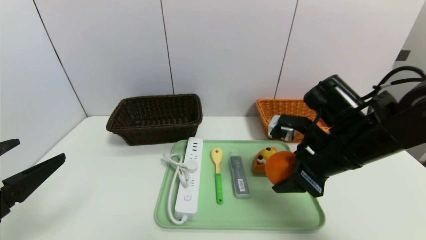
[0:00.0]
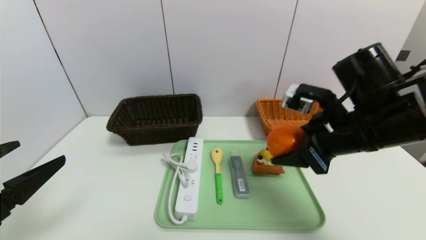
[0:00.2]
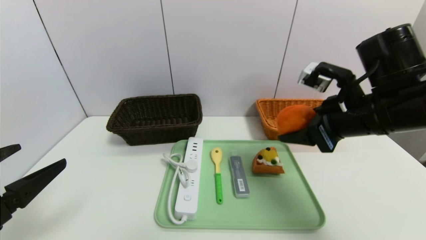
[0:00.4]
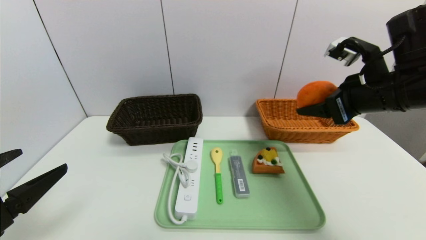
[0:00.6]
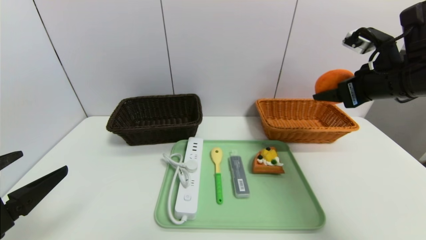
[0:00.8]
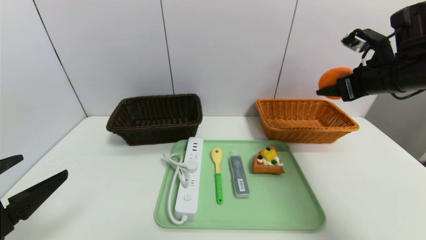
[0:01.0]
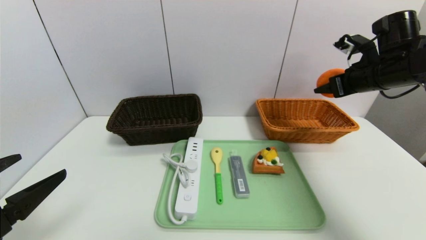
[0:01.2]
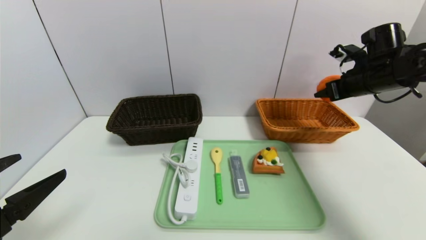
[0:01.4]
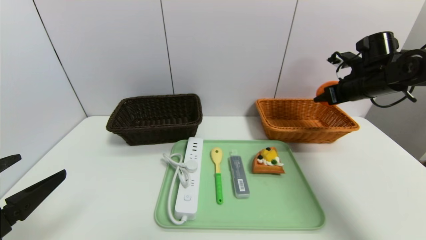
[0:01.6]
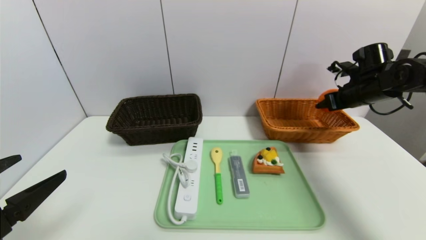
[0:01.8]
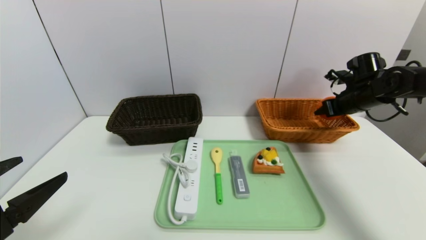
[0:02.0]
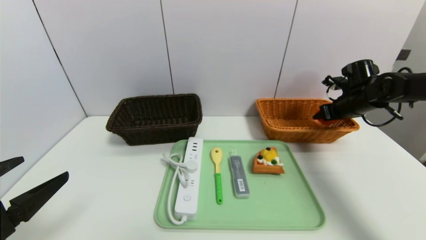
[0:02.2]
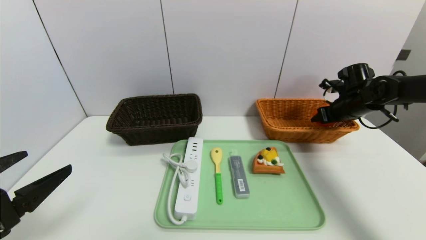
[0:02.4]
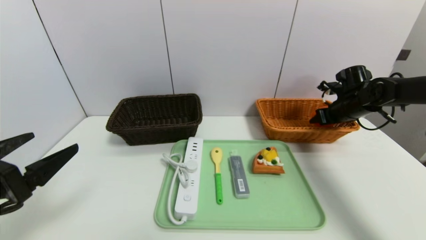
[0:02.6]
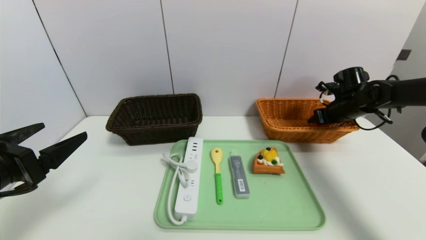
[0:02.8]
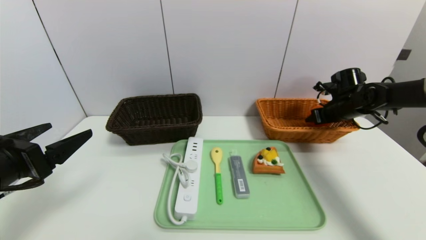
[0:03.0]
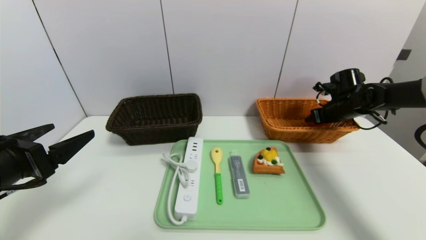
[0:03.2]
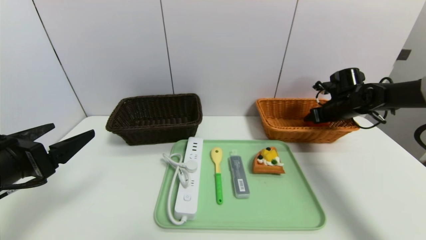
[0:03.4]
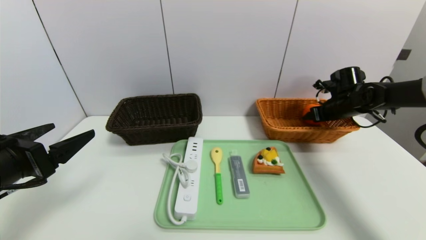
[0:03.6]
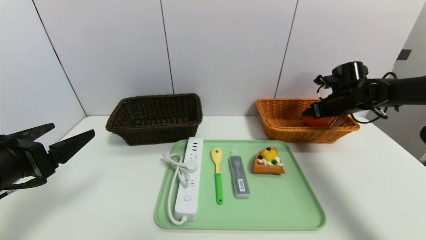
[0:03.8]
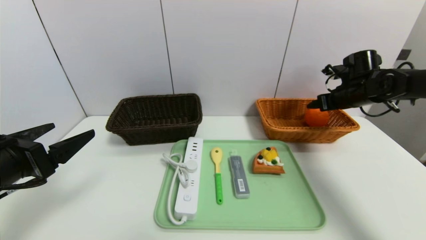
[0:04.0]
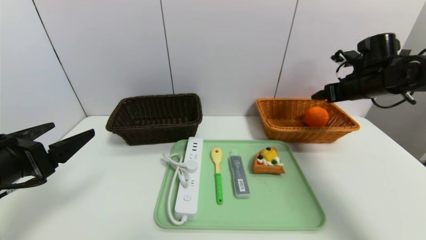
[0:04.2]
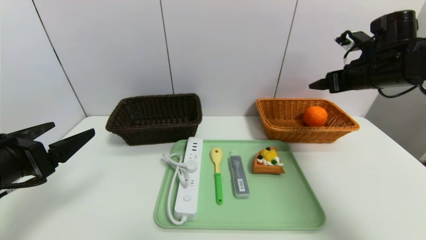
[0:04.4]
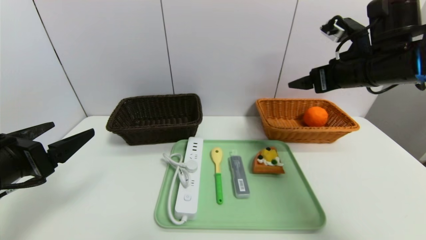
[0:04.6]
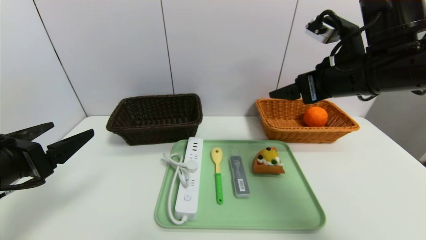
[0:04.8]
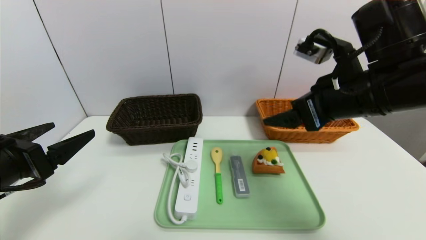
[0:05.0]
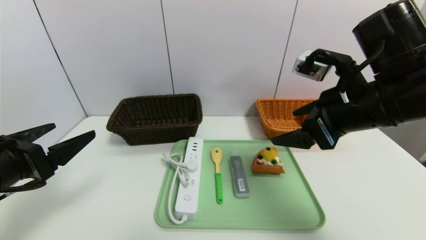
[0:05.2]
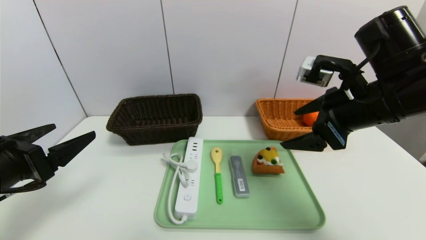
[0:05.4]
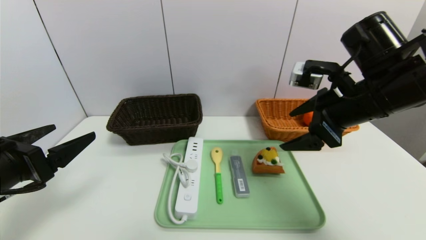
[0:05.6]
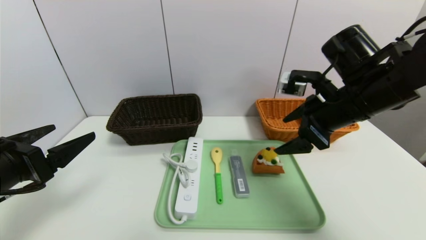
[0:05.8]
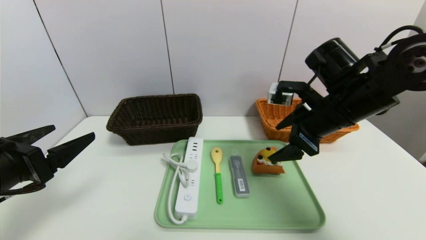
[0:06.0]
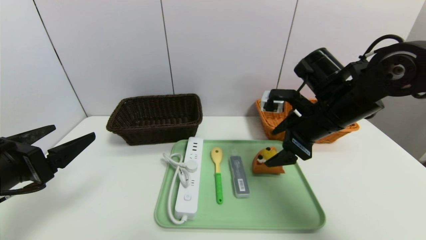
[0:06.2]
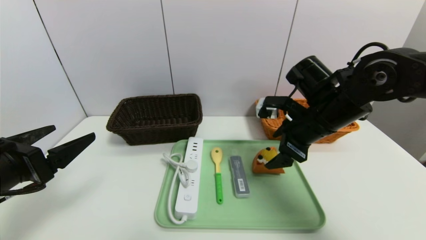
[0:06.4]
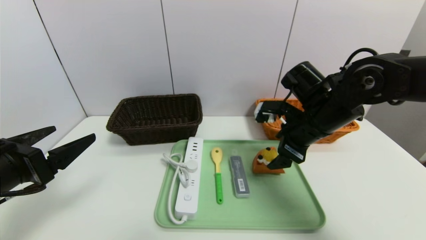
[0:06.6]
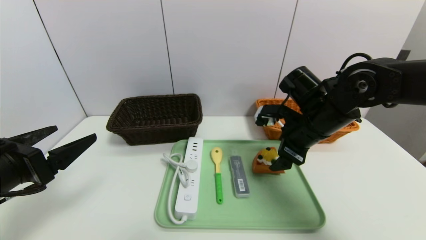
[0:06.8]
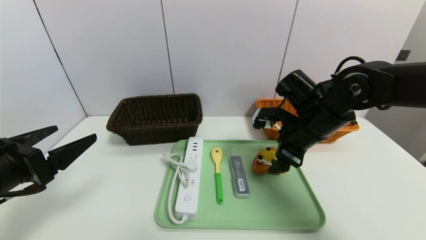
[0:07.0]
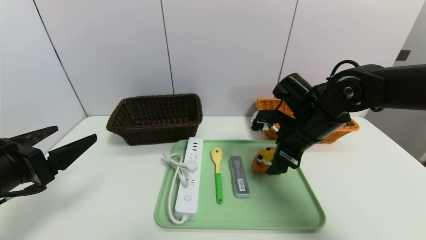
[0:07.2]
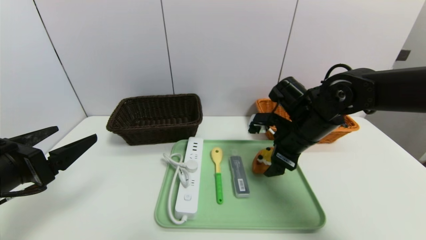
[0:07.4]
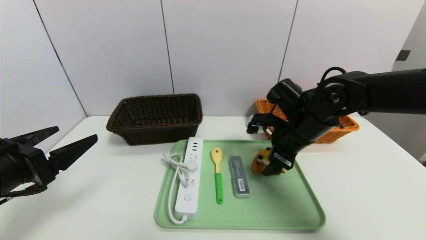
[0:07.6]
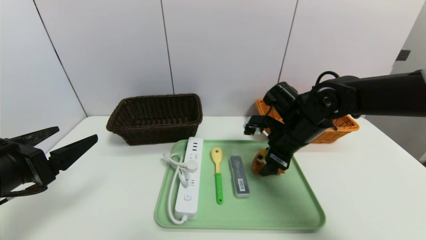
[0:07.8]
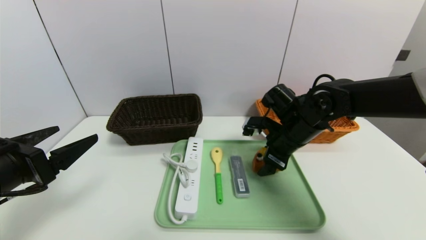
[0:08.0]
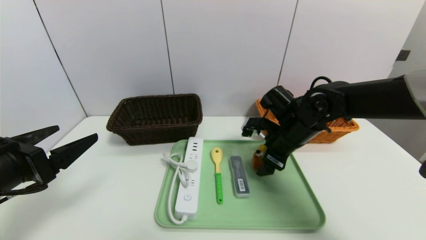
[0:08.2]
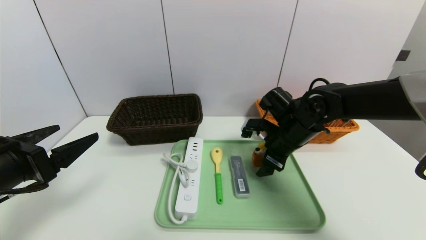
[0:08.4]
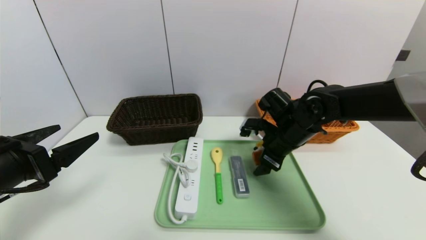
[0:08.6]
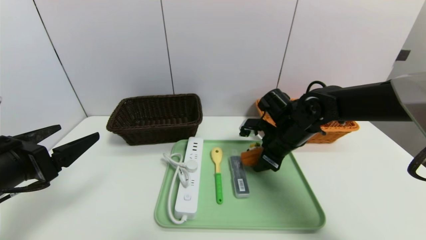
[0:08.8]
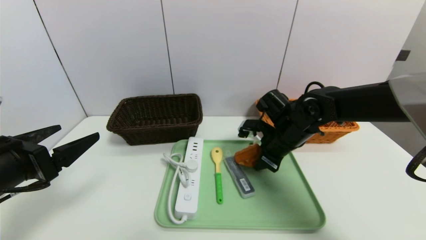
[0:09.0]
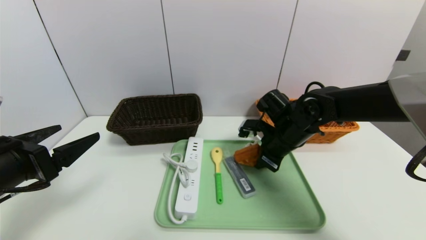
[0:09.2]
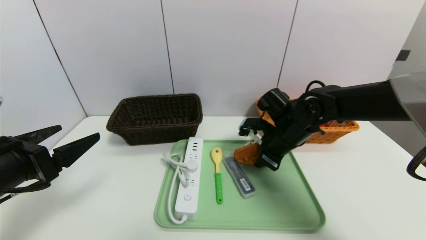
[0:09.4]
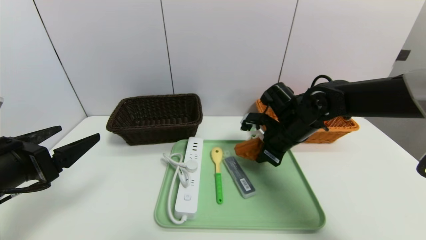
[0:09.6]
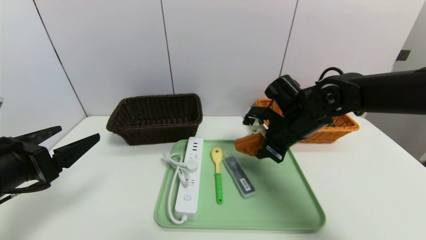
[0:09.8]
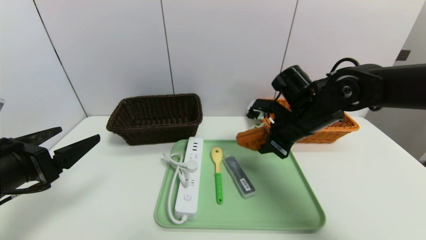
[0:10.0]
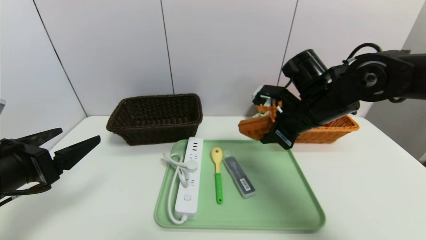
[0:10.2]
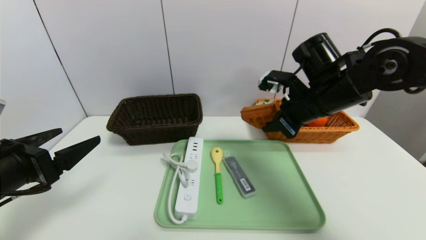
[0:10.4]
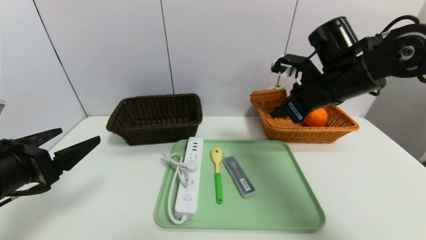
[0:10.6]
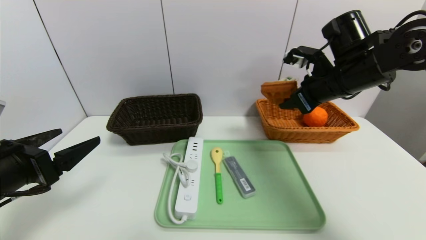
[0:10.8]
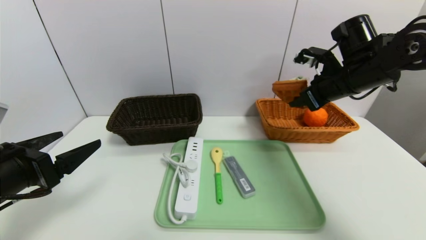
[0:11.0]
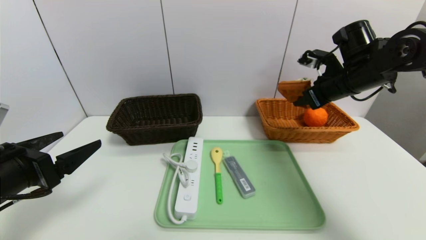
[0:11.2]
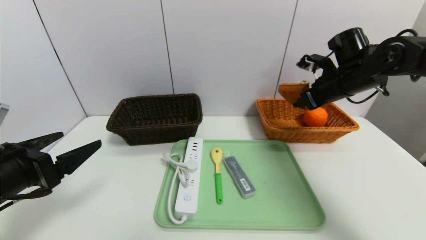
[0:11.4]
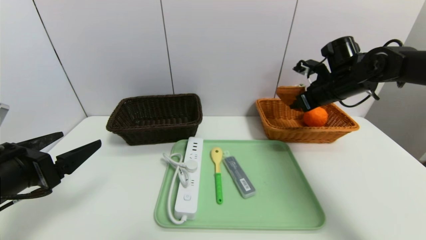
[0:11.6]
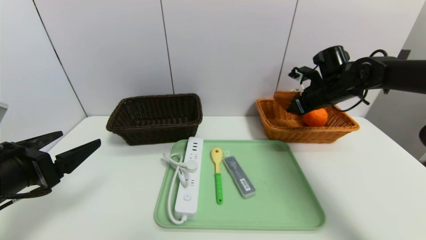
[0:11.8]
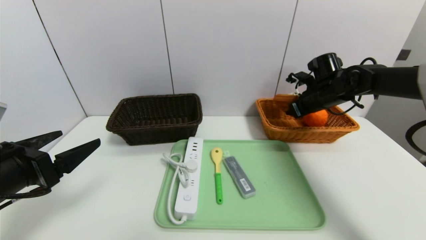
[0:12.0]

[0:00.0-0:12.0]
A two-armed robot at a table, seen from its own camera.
Task of the whole recording: place the food in the right basket with the right gripper, and place the non food items in the left basket with the left gripper.
Step, 0:00.0 to 0:04.0: Grasp the orange and put it in the right basket.
0:00.0 to 0:01.6: The right gripper is displaced forward and to the right by roughly 20 cm.
0:01.6 to 0:03.0: The left gripper goes some 5 cm forward. Meanwhile the right gripper moves downward, approximately 10 cm.
0:03.0 to 0:04.4: The right gripper moves upward, backward and to the left, approximately 15 cm, and opens its fingers.
0:04.4 to 0:06.0: The right gripper travels to the left and backward by some 10 cm.
0:06.0 to 0:07.6: The right gripper shifts some 5 cm downward.
0:07.6 to 0:09.0: The right gripper closes up.
0:09.0 to 0:10.4: The right gripper moves upward, about 10 cm.
0:10.4 to 0:12.0: The right gripper moves forward, to the right and downward, some 15 cm.

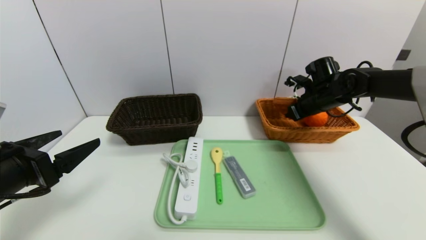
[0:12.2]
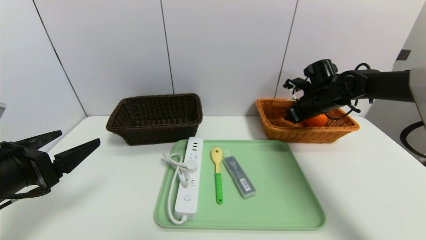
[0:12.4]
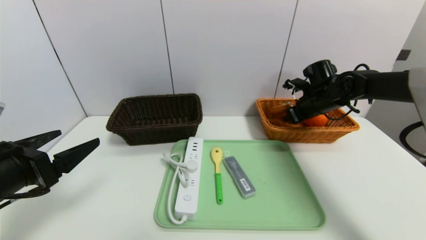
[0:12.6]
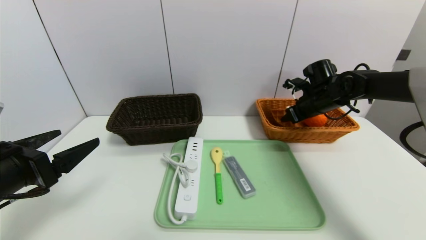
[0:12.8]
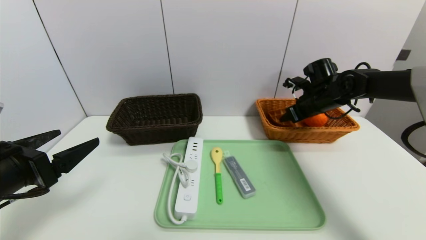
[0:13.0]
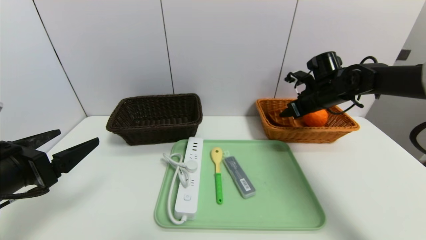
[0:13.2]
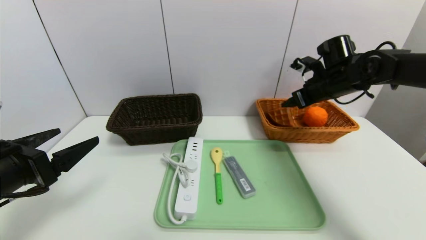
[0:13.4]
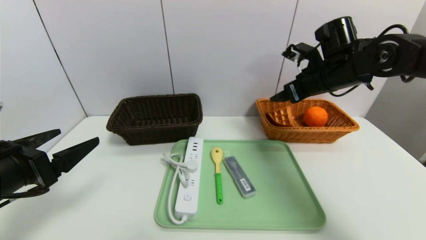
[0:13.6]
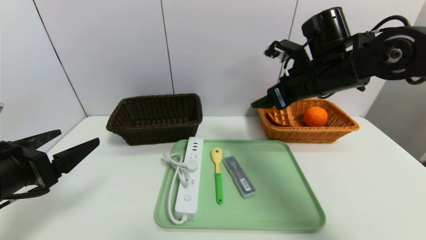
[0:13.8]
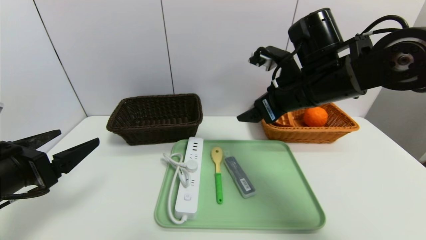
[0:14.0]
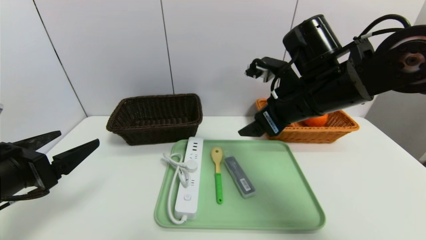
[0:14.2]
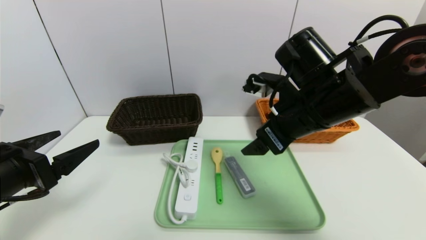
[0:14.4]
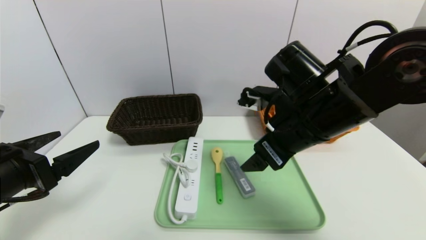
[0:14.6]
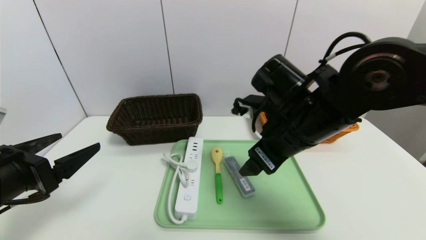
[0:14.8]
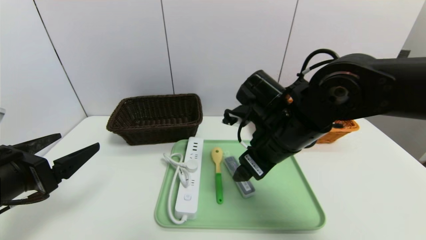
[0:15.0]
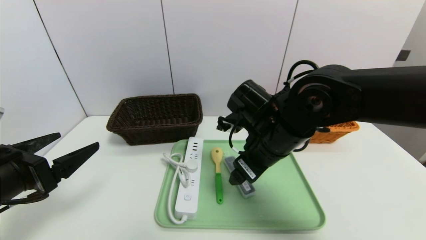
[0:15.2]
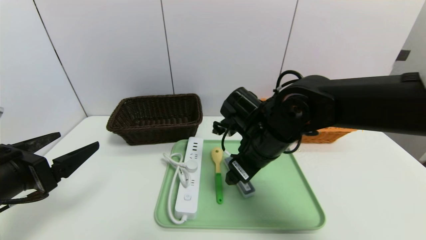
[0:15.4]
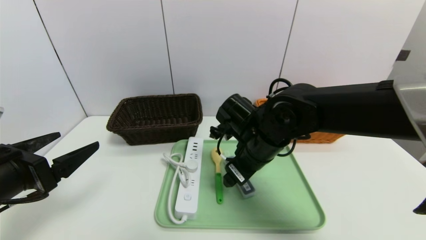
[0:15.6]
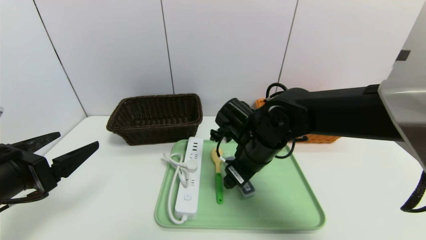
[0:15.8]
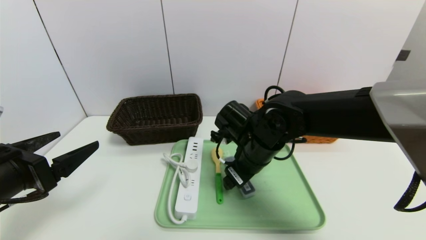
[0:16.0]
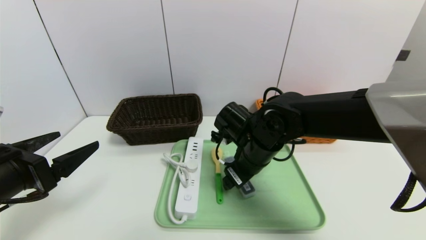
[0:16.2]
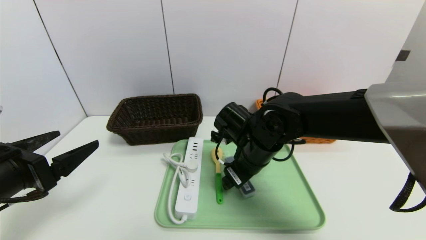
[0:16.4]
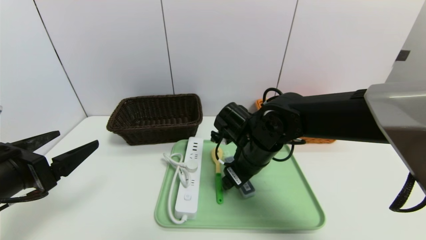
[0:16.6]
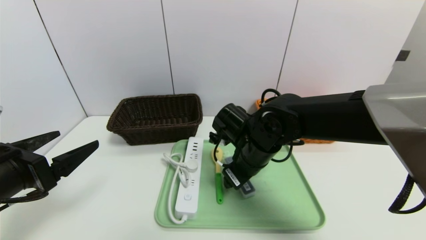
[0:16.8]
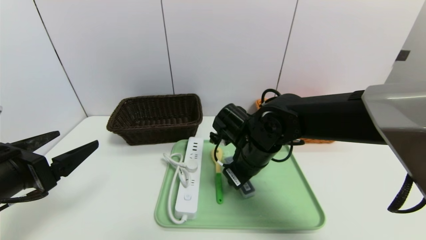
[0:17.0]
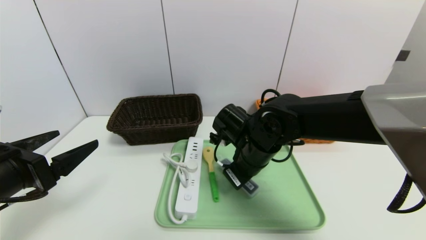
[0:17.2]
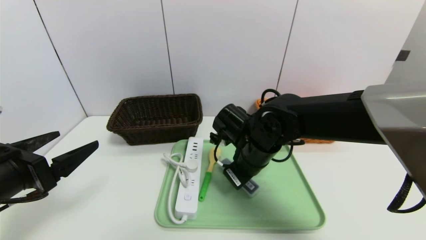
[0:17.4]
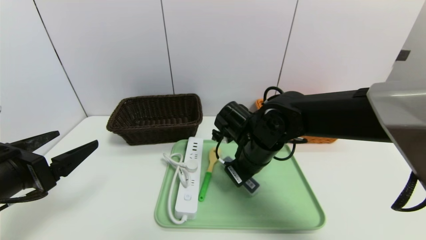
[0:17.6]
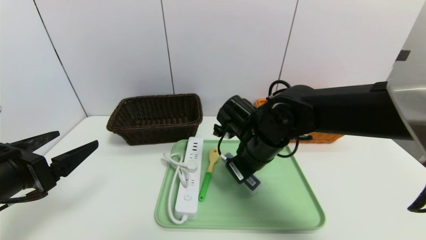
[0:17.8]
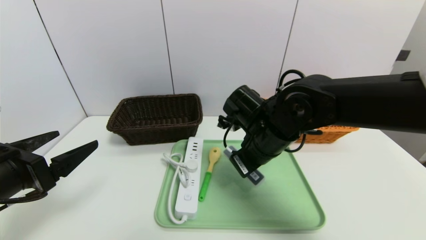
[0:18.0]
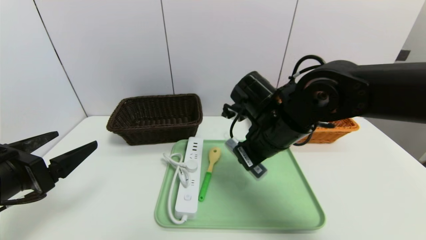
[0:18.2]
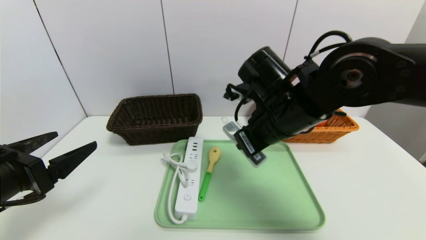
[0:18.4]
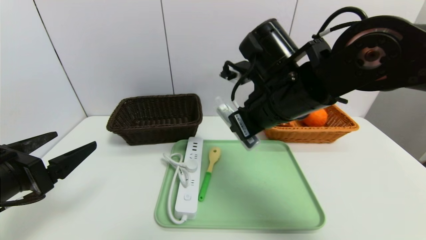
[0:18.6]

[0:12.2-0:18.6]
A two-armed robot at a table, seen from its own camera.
Task of the whole recording: place the food in the right basket with the right gripper, and place the non food items in the left basket with the left gripper.
0:12.2 to 0:13.8: The right gripper moves backward, to the left and upward, approximately 20 cm, and opens up.
0:13.8 to 0:15.4: The right gripper travels downward and to the left by some 15 cm.
0:15.4 to 0:17.0: The right gripper closes.
0:17.0 to 0:18.6: The right gripper shifts roughly 15 cm upward.
